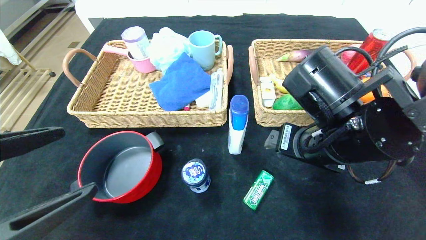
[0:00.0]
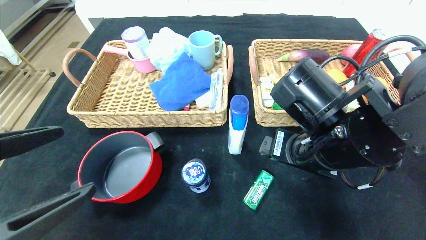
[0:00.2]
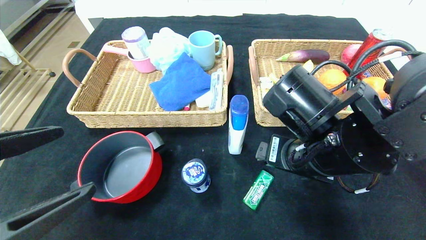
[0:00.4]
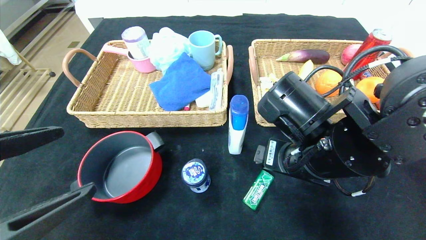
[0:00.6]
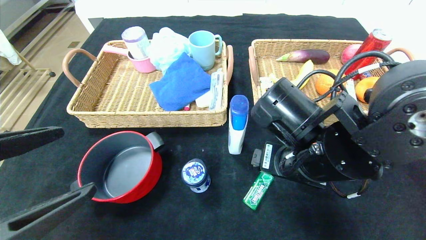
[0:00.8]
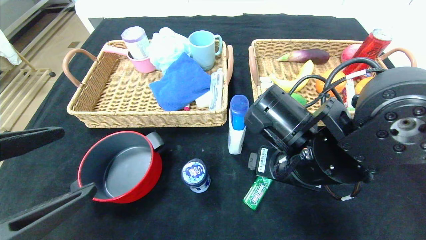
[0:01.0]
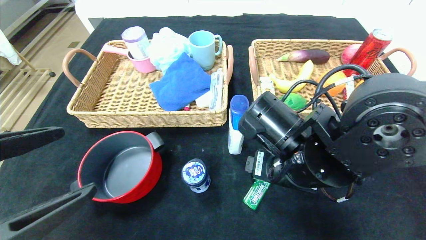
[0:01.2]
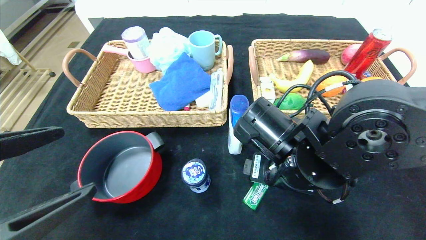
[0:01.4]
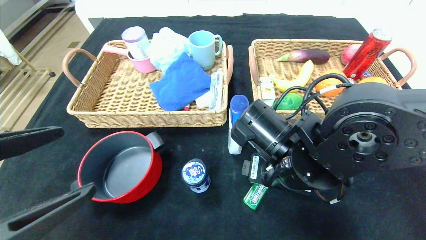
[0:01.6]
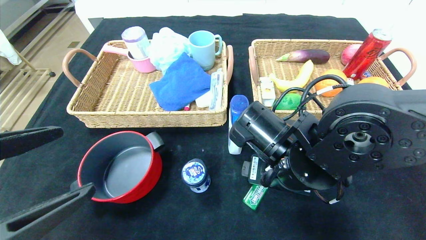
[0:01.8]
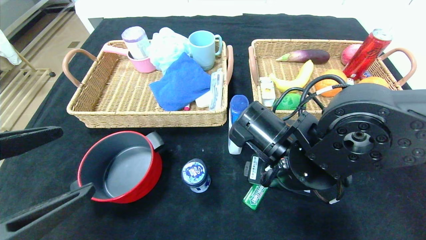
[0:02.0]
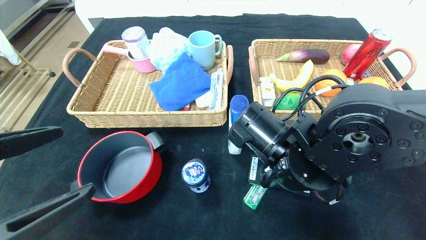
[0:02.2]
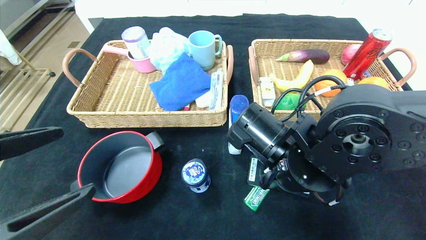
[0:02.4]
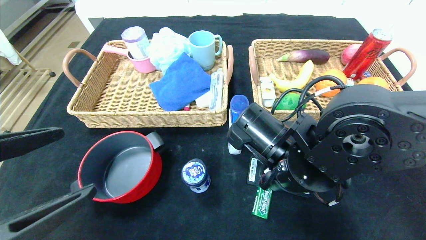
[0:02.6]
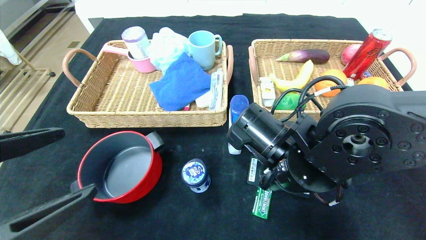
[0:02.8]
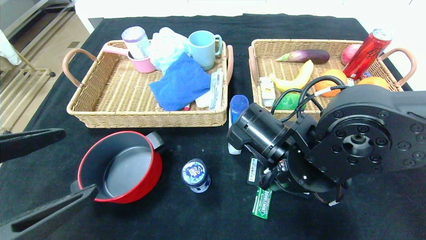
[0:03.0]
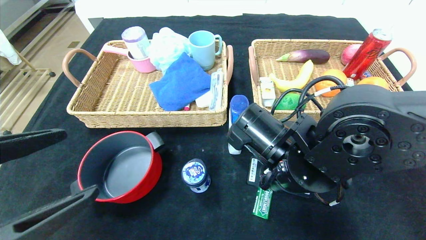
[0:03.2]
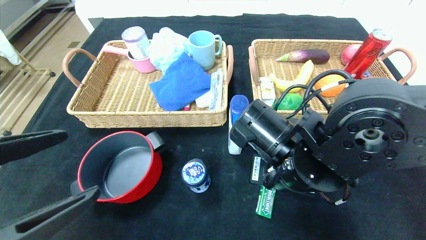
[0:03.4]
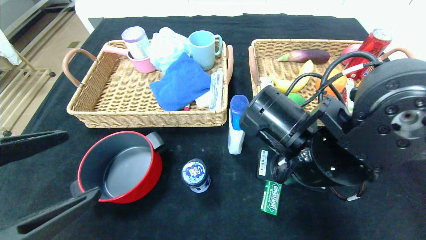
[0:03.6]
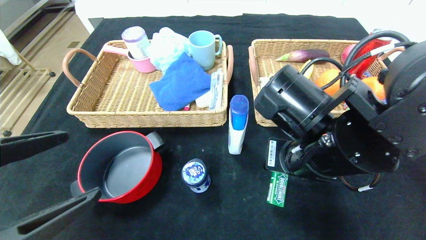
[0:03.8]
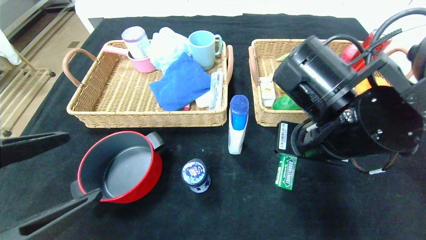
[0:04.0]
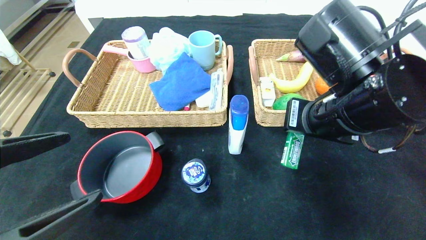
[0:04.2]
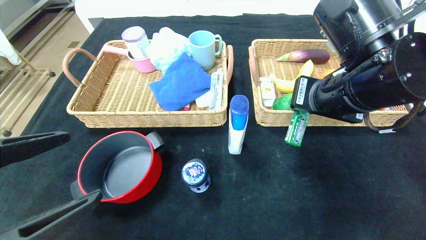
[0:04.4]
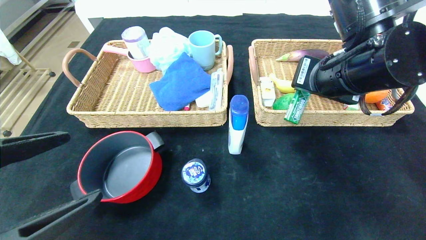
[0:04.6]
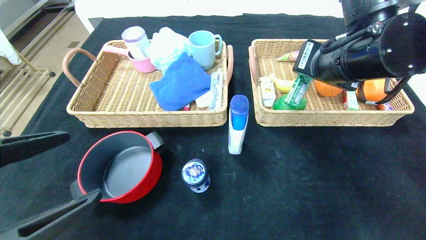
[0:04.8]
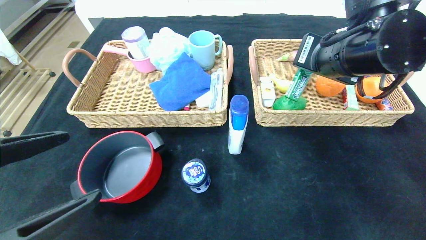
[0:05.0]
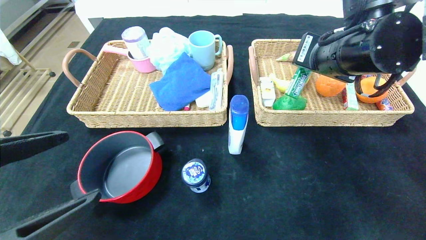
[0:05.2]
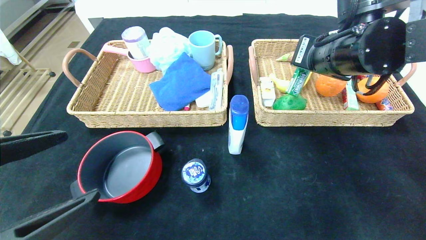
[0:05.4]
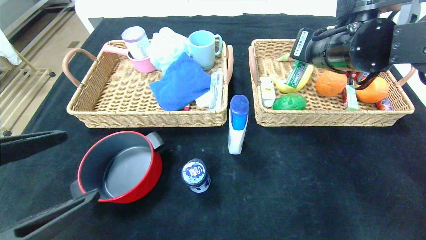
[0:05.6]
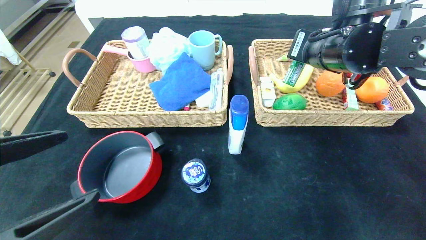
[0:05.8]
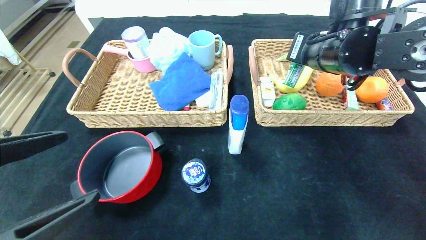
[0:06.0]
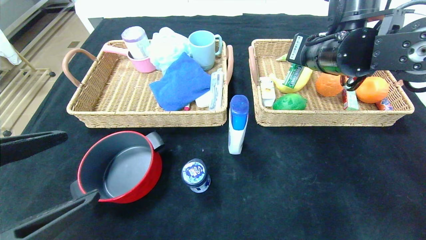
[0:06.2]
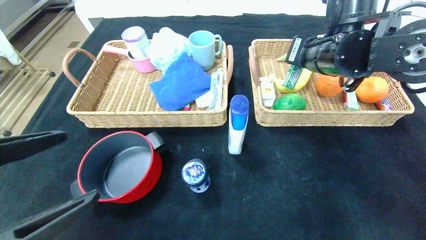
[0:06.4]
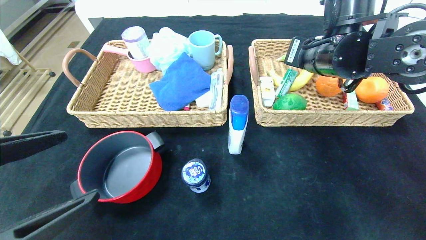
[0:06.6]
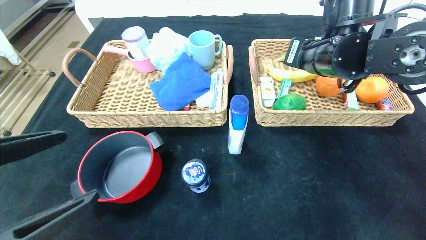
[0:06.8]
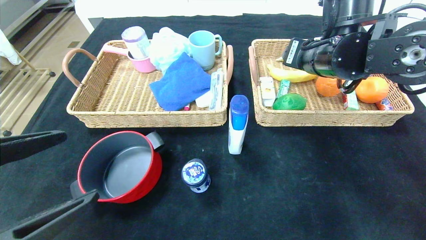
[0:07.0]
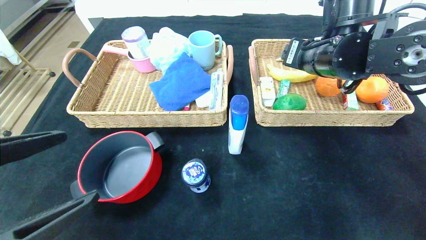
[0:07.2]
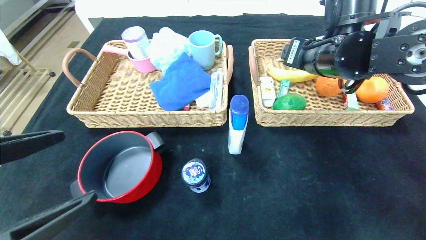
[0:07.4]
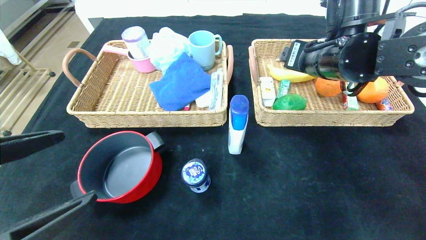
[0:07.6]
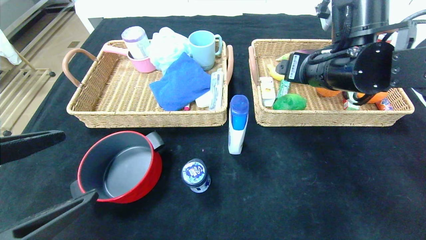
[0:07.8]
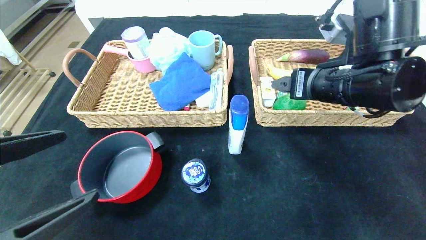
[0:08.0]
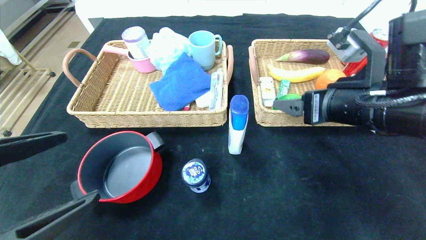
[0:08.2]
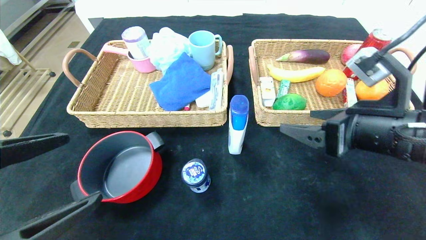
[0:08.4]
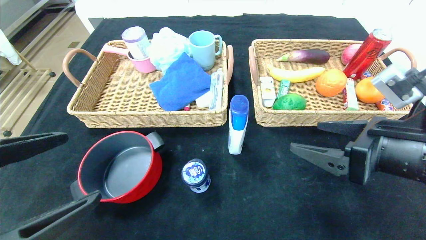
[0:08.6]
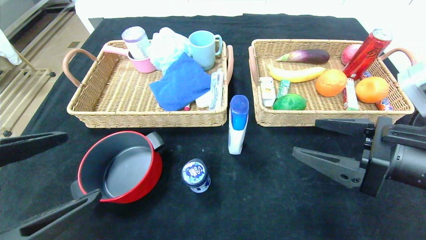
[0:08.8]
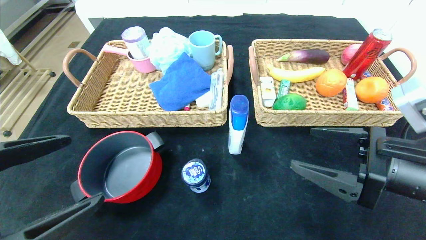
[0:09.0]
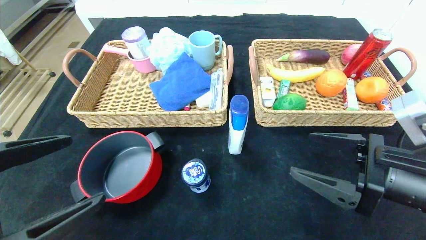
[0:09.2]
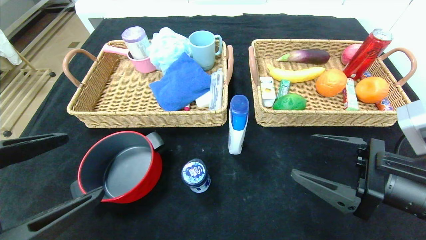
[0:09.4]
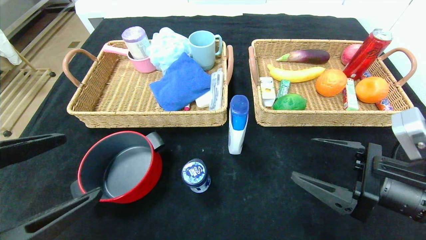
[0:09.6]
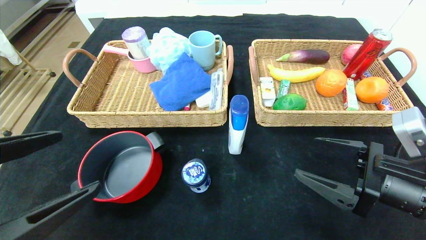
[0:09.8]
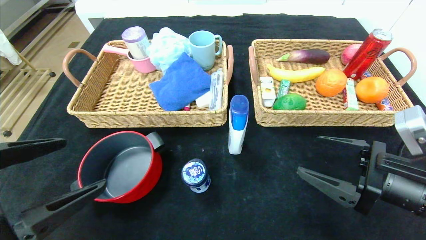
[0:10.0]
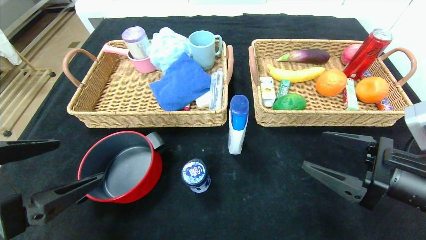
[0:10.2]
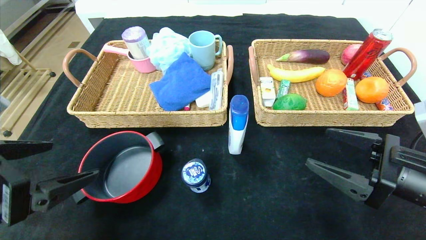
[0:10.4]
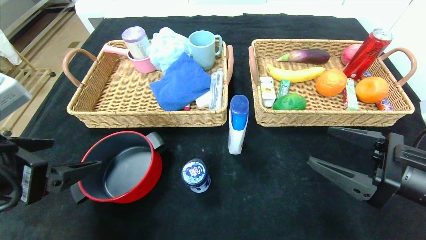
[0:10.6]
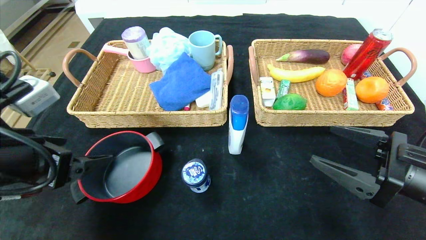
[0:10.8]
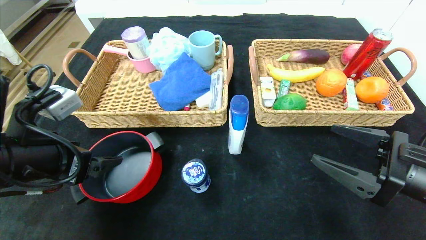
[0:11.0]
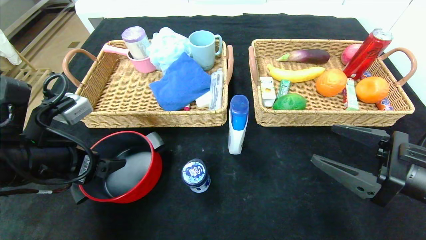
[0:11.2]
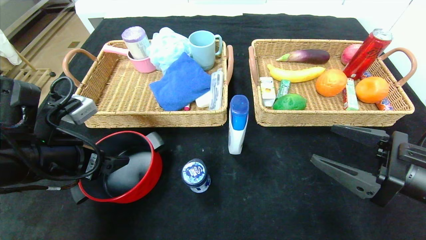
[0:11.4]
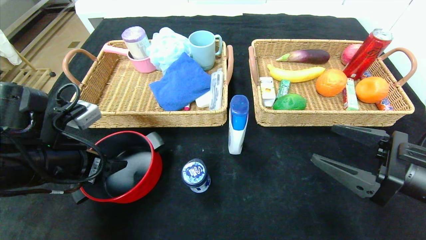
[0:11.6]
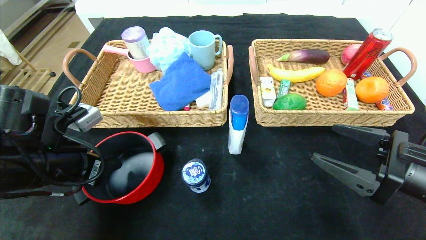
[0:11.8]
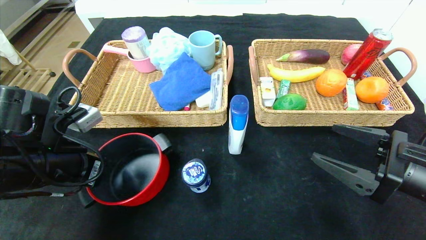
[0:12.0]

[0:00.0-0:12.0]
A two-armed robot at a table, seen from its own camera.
Step, 0:00.2 to 0:09.0: Pick up the green chewing gum and put it in the right basket.
0:00.0 to 0:01.6: The right gripper travels downward by some 5 cm.
0:01.6 to 0:03.0: The right gripper closes up.
0:03.0 to 0:04.4: The right gripper shifts some 15 cm upward and to the right.
0:04.4 to 0:06.0: The right gripper travels forward by about 10 cm.
0:06.0 to 0:07.6: The right gripper opens up.
0:07.6 to 0:09.0: The right gripper is displaced backward, downward and to the right by roughly 20 cm.
0:10.4 to 0:12.0: The left gripper moves forward and downward, some 10 cm, and closes up.

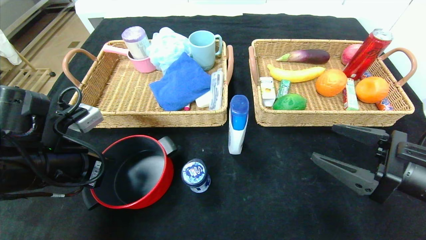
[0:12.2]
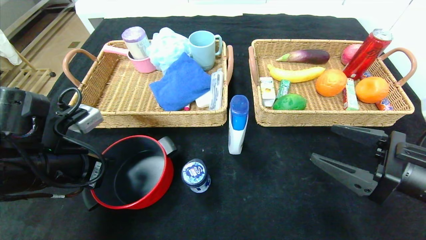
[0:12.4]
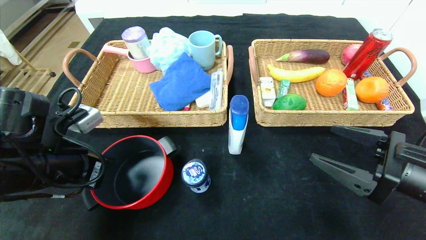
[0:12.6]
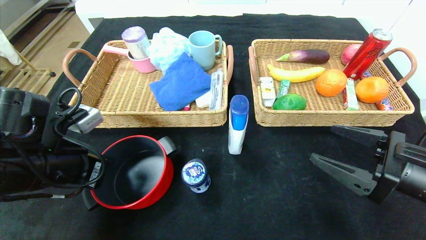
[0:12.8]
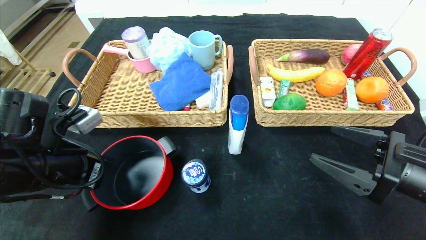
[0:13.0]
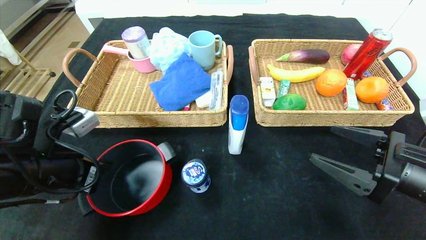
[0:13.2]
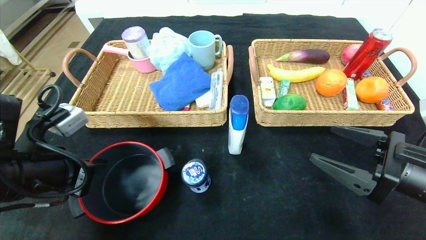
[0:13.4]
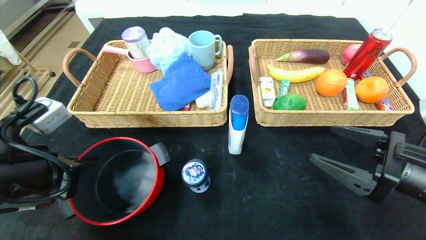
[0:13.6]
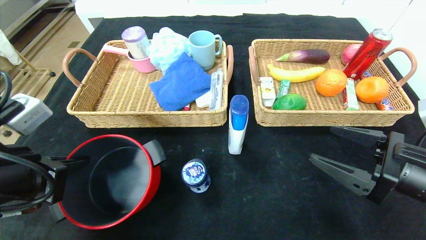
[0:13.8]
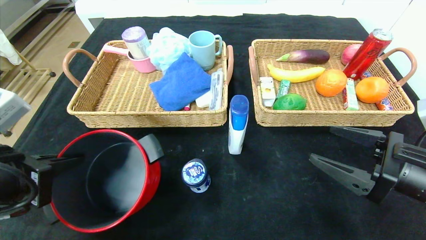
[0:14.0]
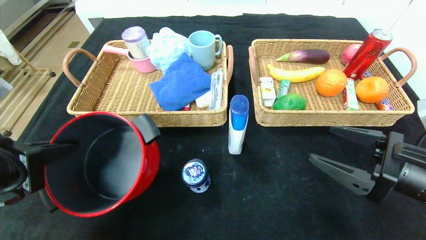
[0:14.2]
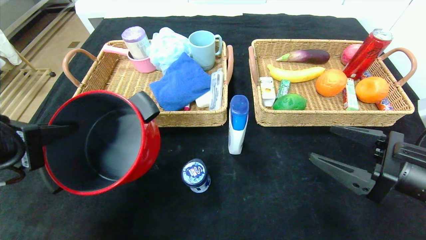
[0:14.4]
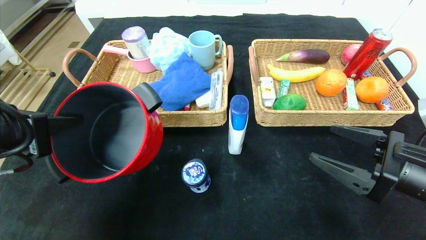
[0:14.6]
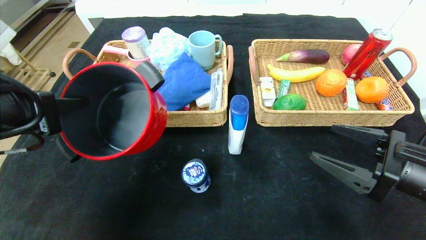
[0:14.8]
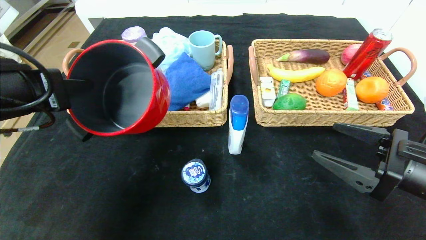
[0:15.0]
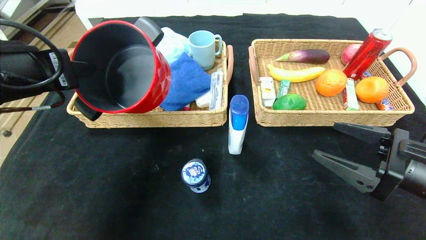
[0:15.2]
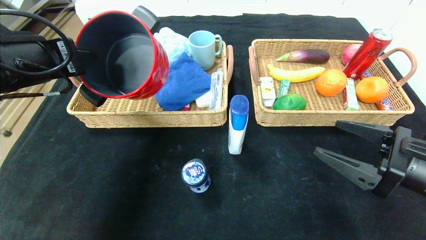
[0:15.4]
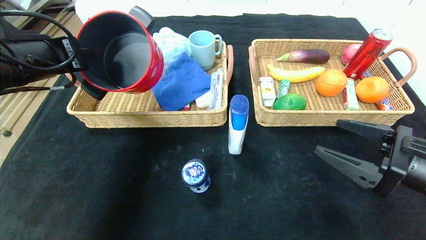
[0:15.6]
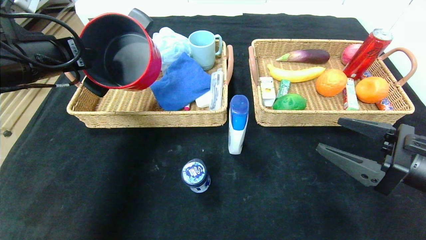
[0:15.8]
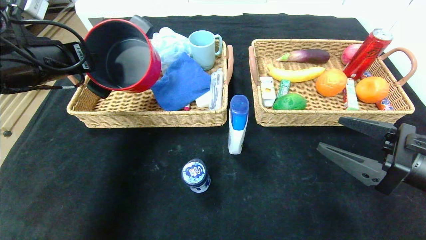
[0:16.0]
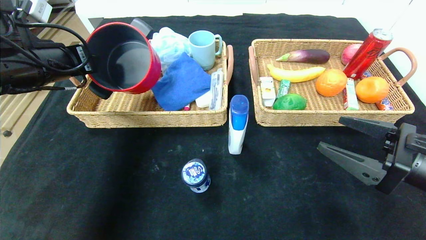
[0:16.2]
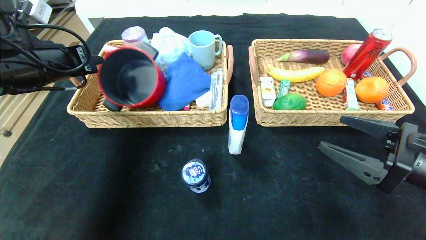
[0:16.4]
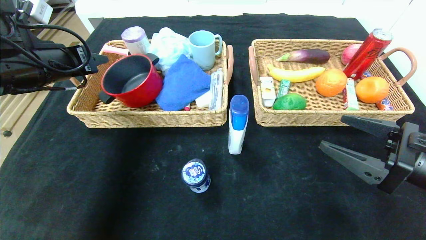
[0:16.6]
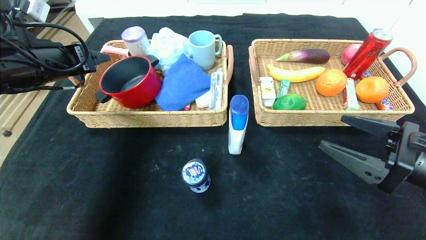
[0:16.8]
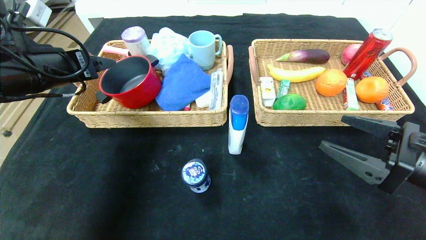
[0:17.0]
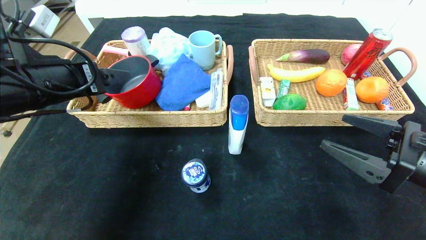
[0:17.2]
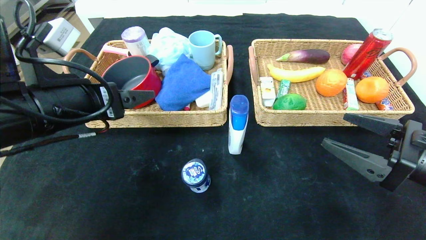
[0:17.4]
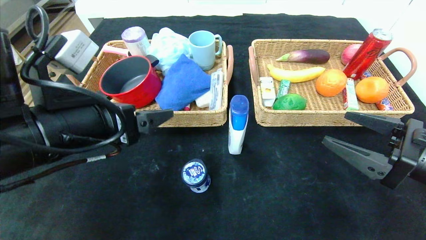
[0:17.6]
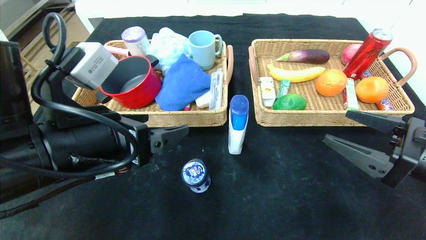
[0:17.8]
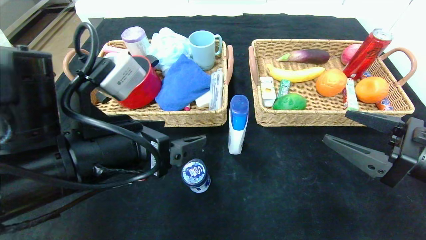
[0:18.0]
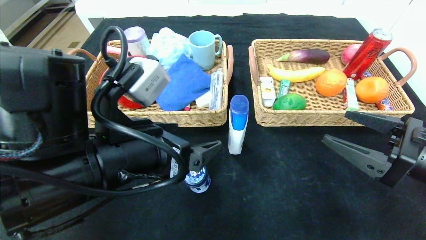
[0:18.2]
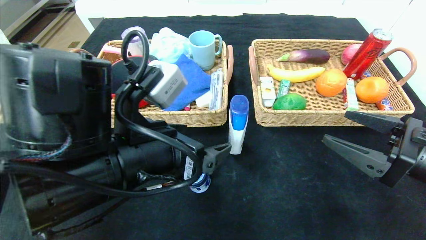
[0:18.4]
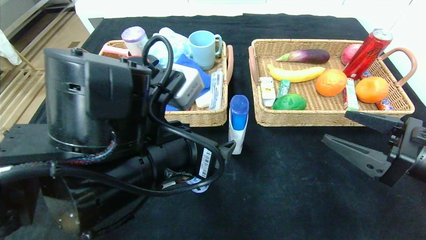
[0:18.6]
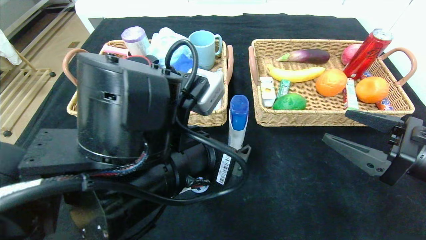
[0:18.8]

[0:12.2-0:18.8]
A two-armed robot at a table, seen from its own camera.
Step, 0:12.2 to 0:17.8: Pick up the red pot and put it in the left basket.
0:12.2 to 0:13.8: The left gripper goes approximately 5 cm backward.
0:13.8 to 0:15.4: The left gripper shifts some 15 cm upward and forward.
0:15.4 to 0:17.2: The left gripper opens.
0:17.2 to 0:18.8: The left gripper travels to the right and backward by roughly 20 cm.
